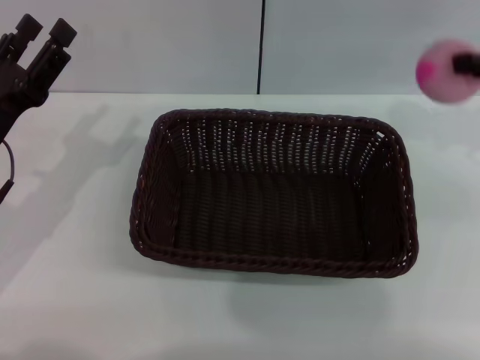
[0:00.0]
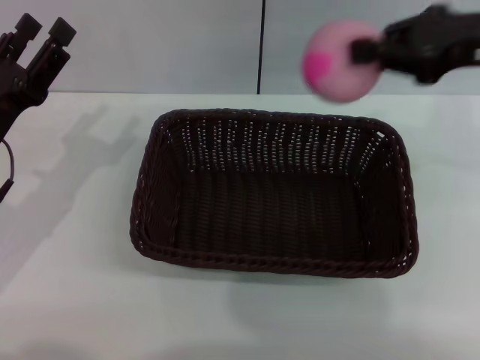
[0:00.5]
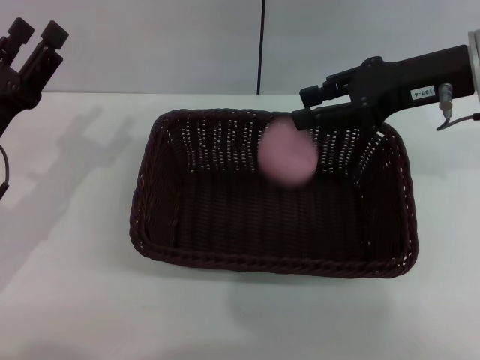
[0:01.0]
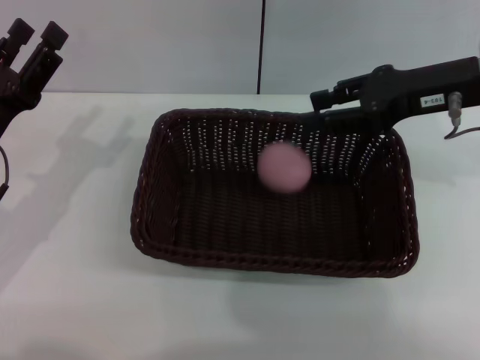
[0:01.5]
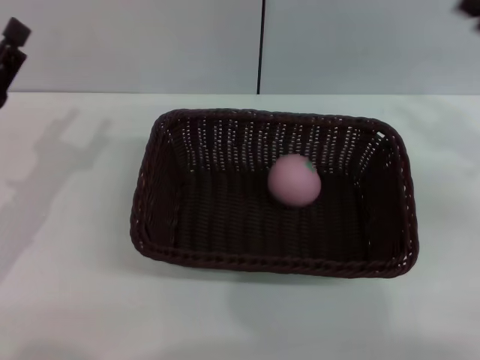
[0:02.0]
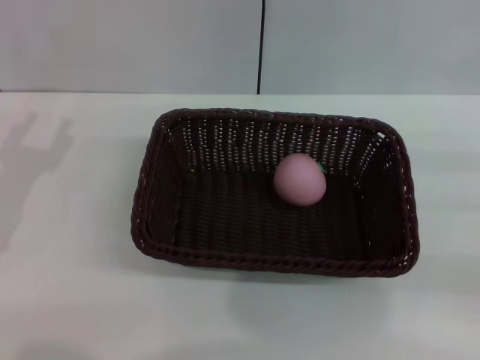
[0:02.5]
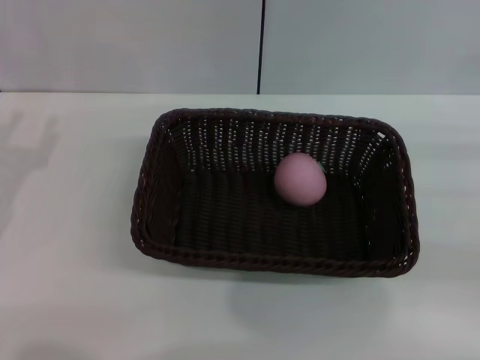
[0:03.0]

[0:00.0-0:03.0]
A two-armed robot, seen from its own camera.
0:00.0 to 0:01.5: The right gripper travels to the left by some 10 cm, and opens up.
0:01.5 to 0:03.0: The left gripper moves approximately 5 cm, while the right gripper shifts approximately 20 cm to the right, backward and downward.

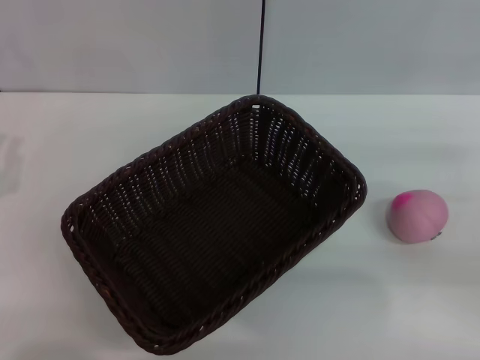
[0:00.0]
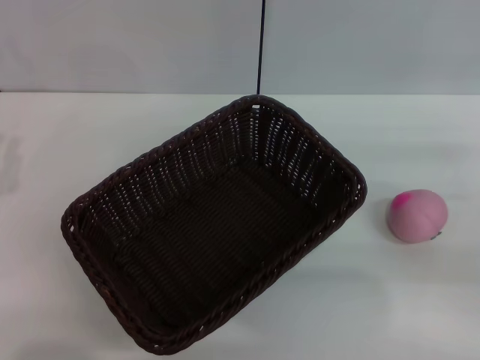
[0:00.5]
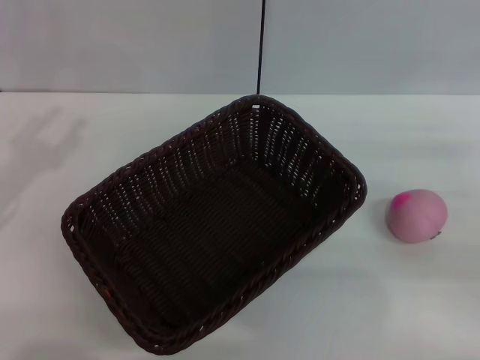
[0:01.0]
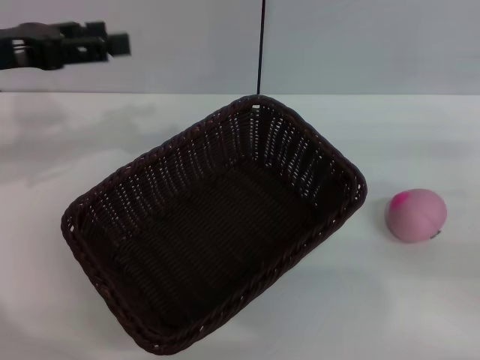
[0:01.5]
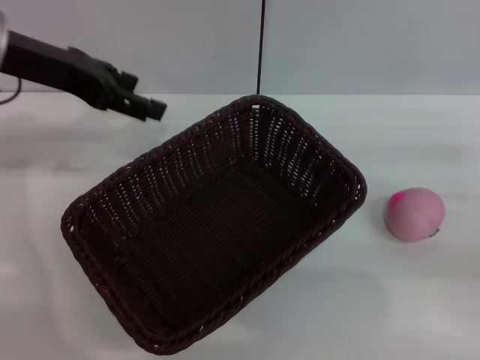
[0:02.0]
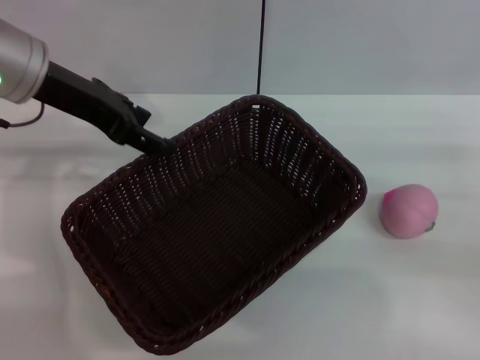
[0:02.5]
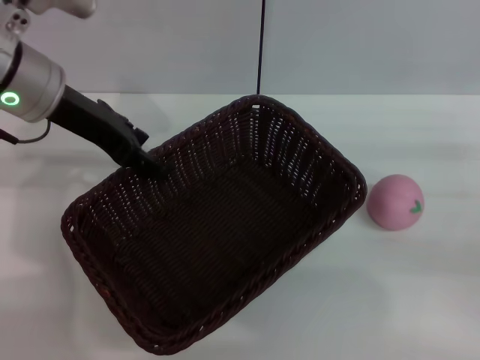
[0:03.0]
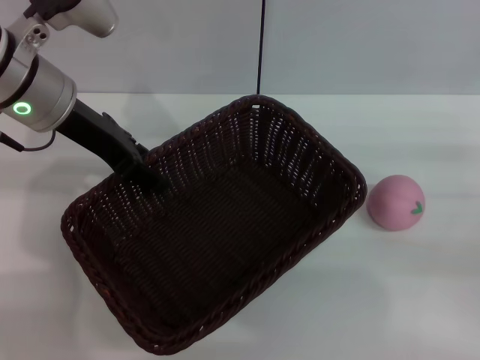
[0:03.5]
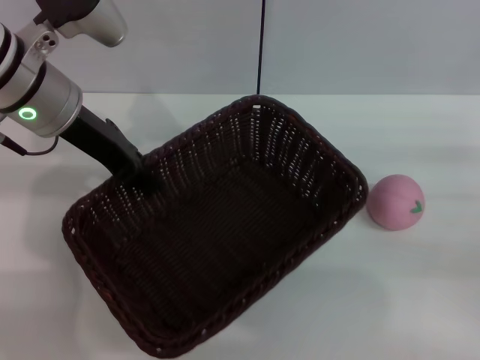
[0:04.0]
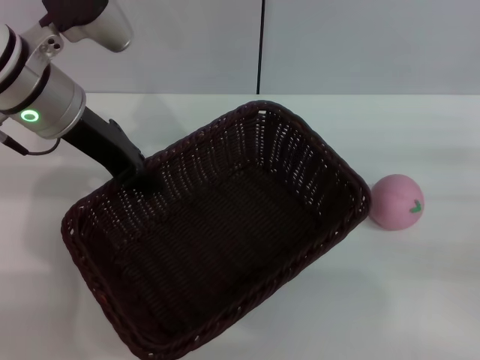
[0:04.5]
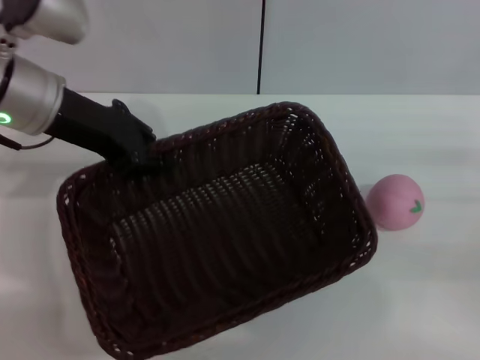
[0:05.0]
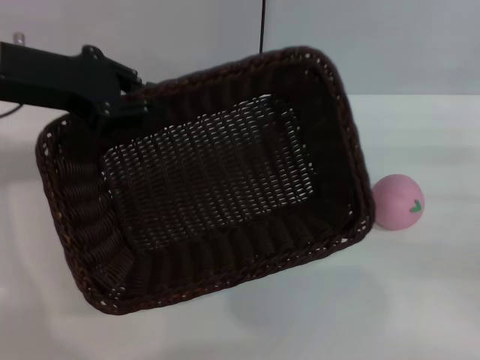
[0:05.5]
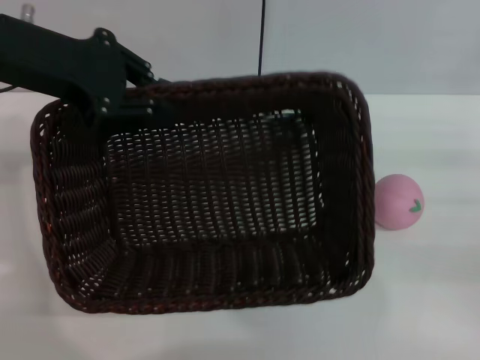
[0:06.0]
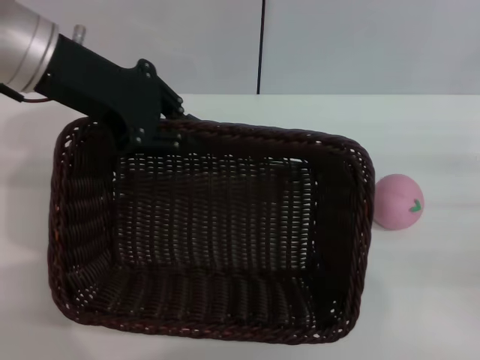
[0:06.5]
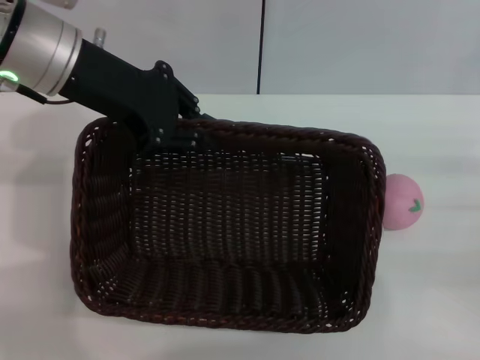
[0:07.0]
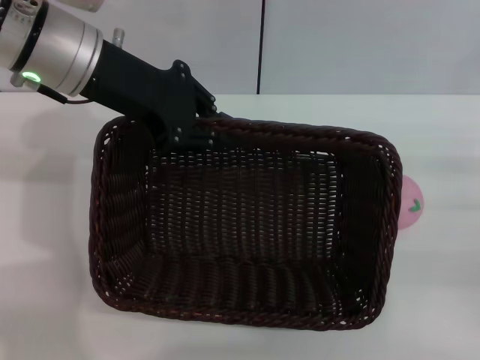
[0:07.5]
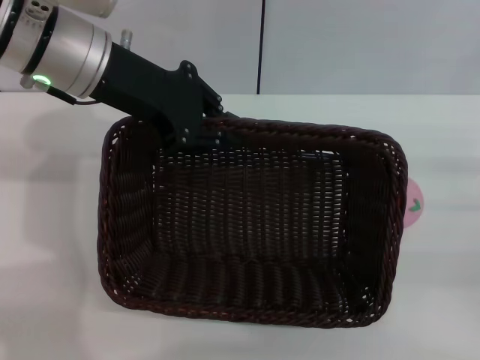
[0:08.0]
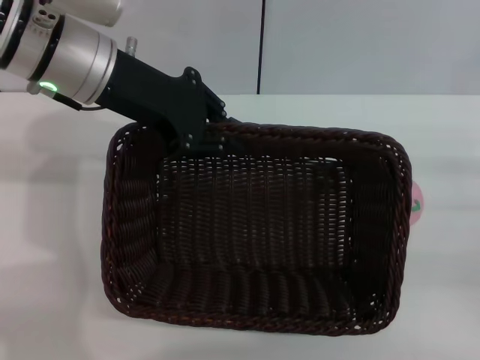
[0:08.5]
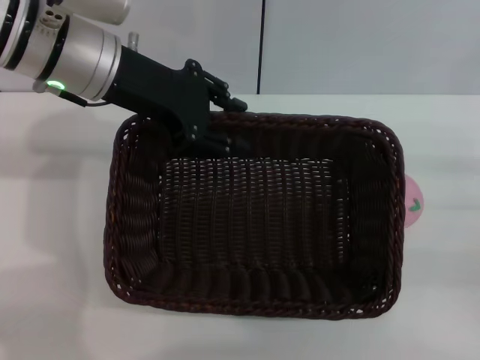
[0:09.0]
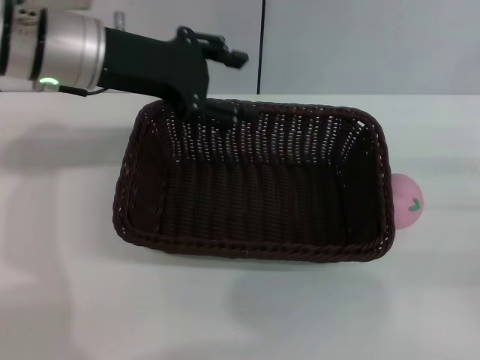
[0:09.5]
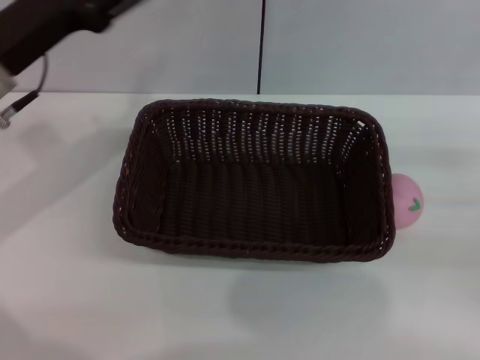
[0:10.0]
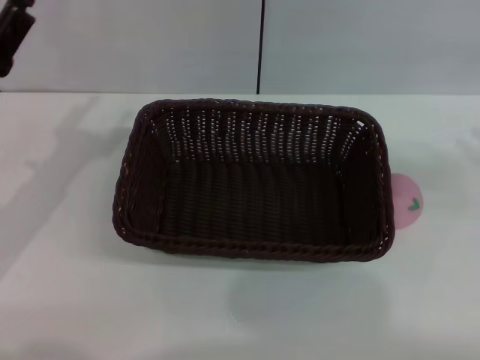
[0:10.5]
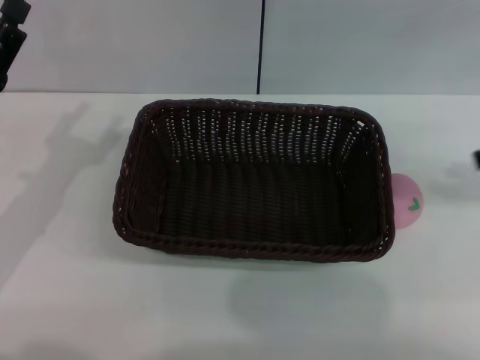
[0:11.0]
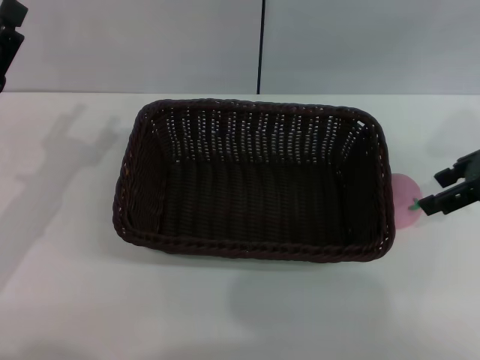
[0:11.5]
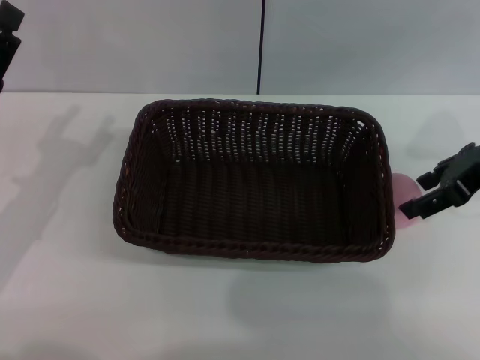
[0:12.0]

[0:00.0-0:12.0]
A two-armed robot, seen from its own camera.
Step, 0:00.0 to 0:05.0: Pick up the dark basket with the left gripper.
0:00.0 to 0:02.0: The left gripper shifts roughly 25 cm forward, upward and to the right, and opens its fingers.
0:02.0 to 0:04.0: The left gripper moves to the right, some 5 cm, and closes.
0:04.0 to 0:06.0: The left gripper heads upward, covering some 5 cm, and closes up.
0:06.0 to 0:08.0: The left gripper shifts approximately 5 cm to the right.
0:08.0 to 0:10.0: The left gripper is displaced to the left and downward by about 10 cm, and opens its fingers.
0:10.0 to 0:12.0: The left gripper moves backward and downward, some 10 cm; the right gripper is displaced to the left, forward and upward by approximately 15 cm.

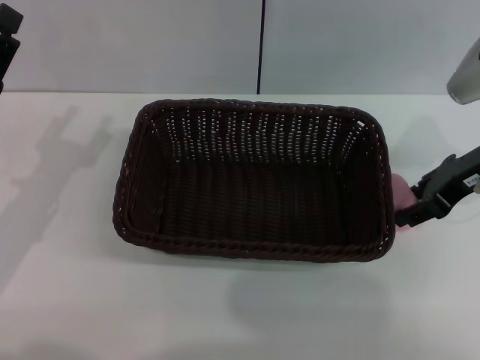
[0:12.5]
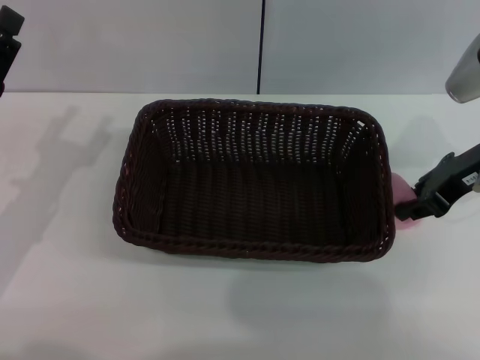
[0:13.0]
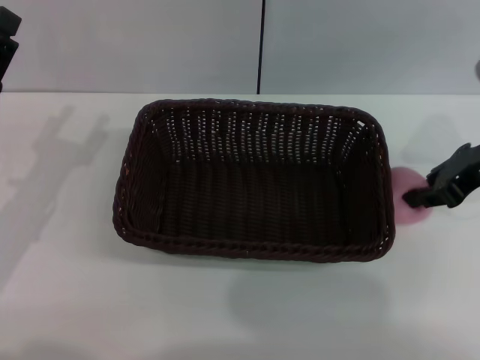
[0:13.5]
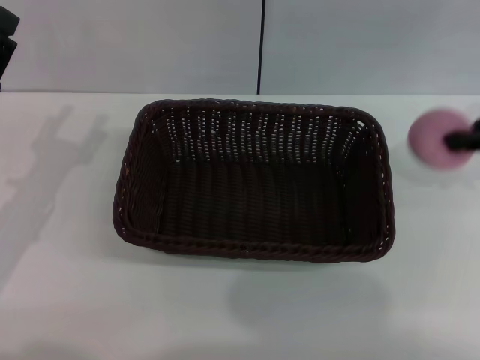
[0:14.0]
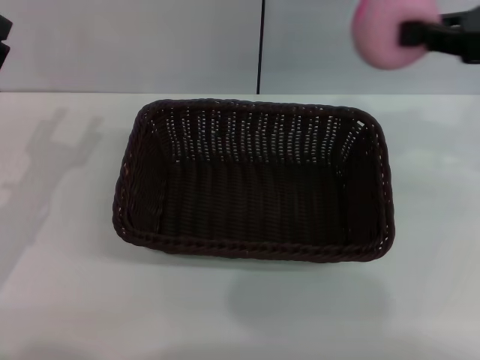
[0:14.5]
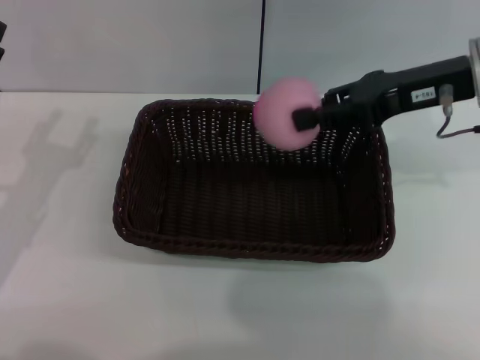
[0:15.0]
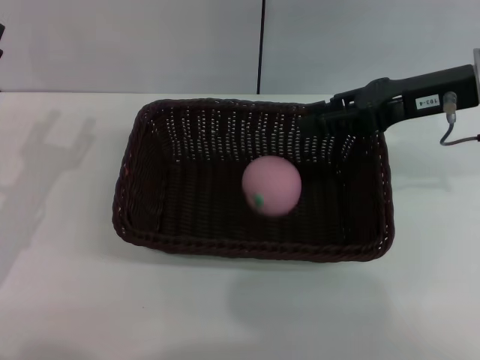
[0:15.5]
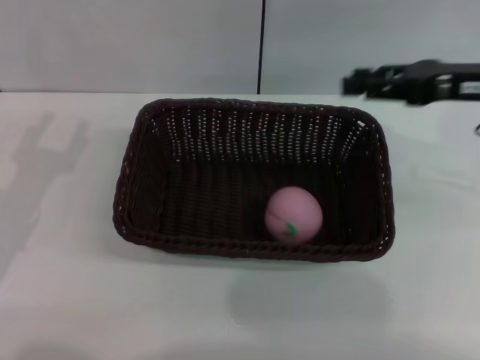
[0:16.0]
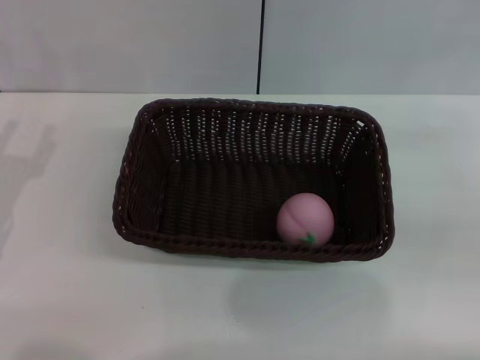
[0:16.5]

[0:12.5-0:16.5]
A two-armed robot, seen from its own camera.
0:12.5 to 0:14.5: The right gripper heads upward, covering about 10 cm, and closes its fingers.
0:14.5 to 0:16.5: The right gripper shifts some 15 cm downward, to the right and backward, and opens up.
